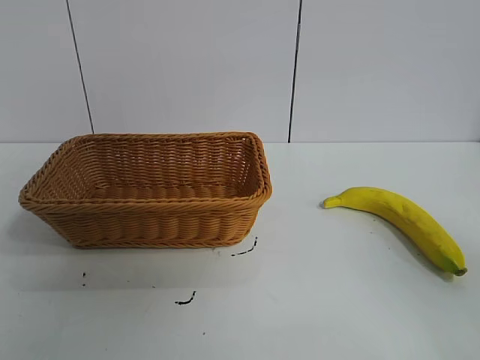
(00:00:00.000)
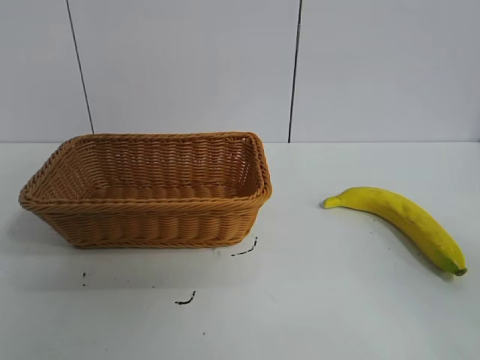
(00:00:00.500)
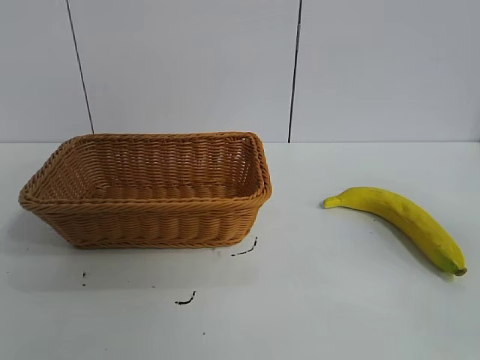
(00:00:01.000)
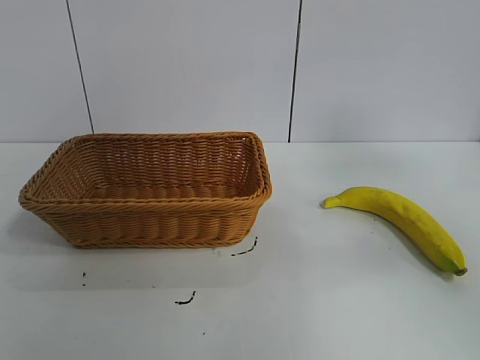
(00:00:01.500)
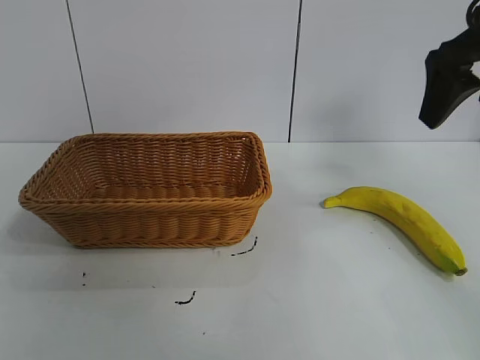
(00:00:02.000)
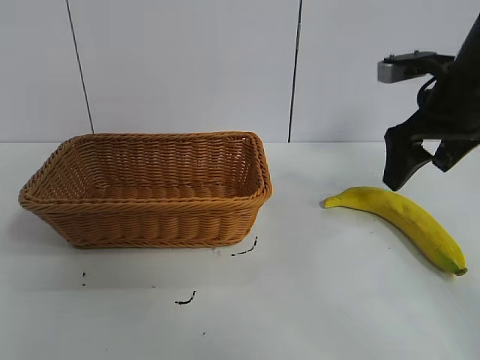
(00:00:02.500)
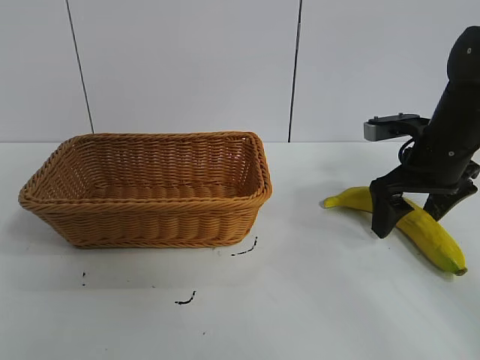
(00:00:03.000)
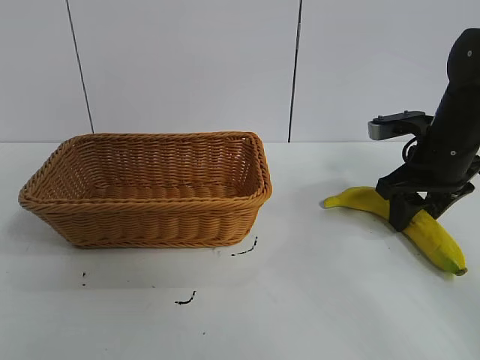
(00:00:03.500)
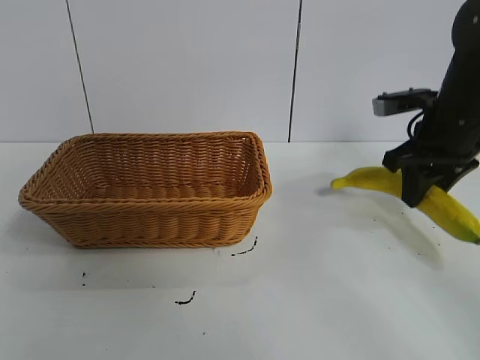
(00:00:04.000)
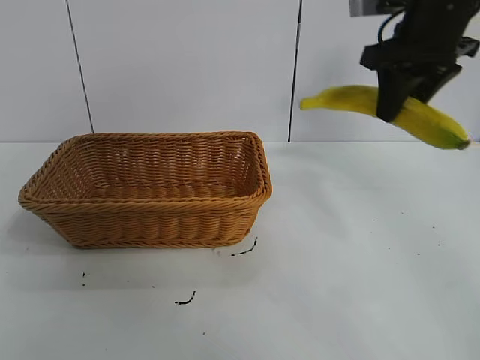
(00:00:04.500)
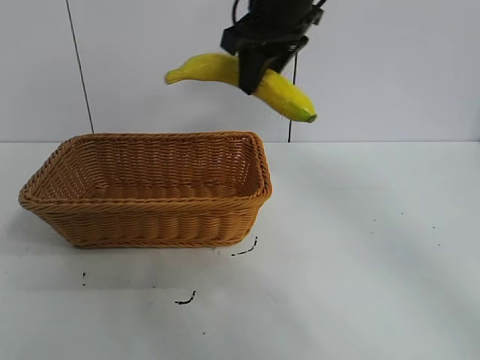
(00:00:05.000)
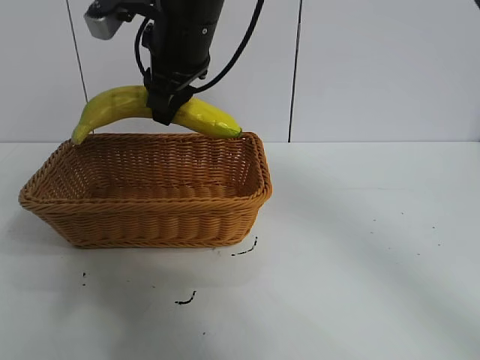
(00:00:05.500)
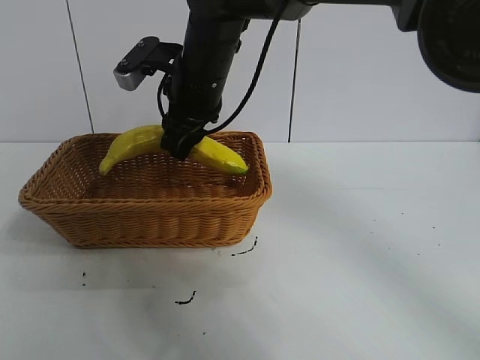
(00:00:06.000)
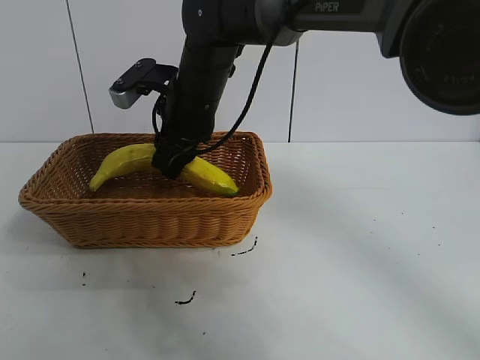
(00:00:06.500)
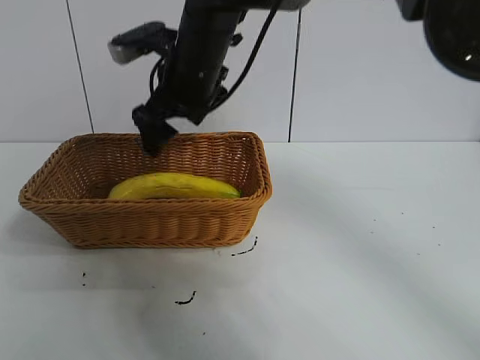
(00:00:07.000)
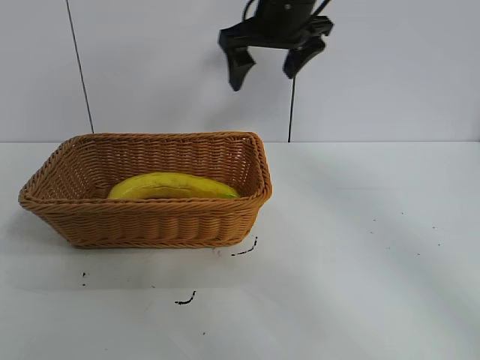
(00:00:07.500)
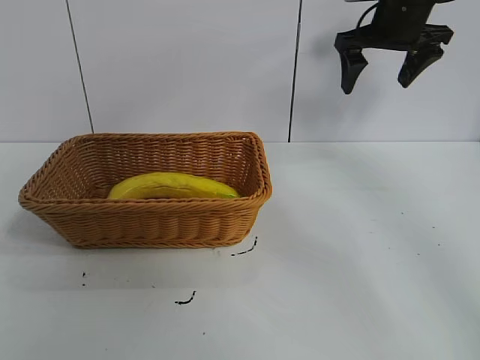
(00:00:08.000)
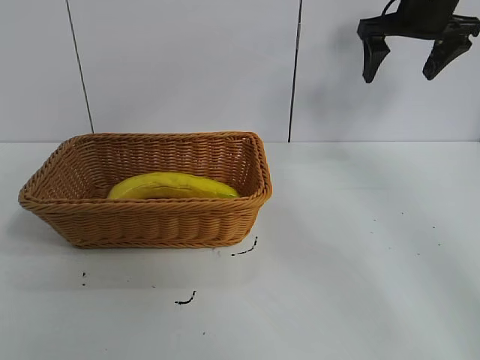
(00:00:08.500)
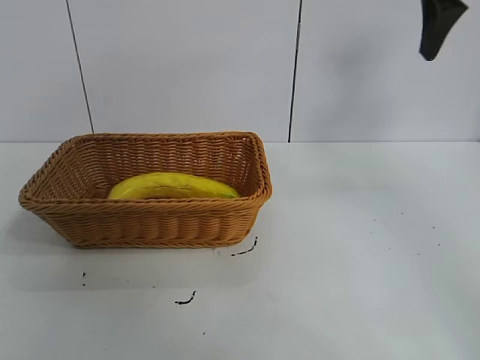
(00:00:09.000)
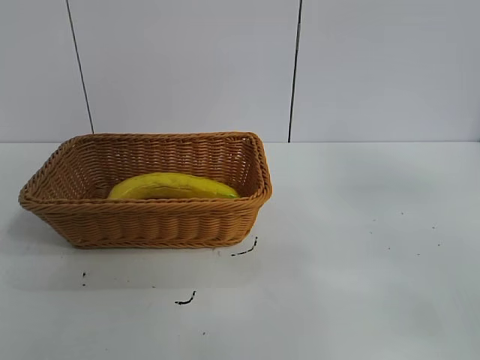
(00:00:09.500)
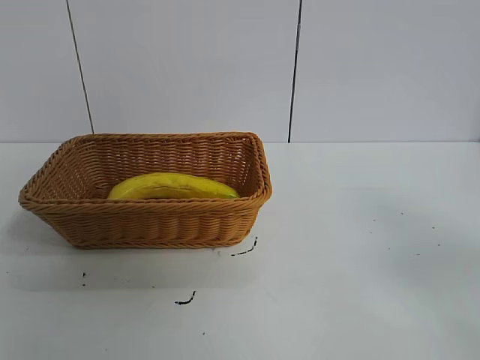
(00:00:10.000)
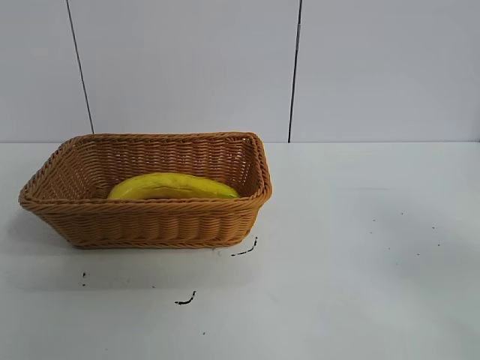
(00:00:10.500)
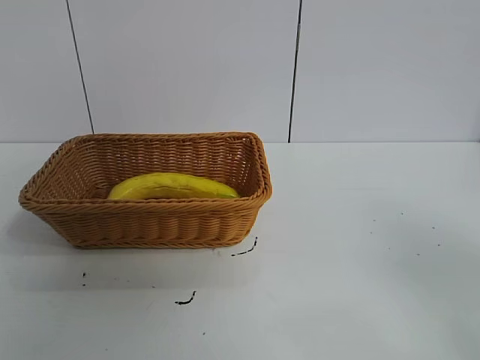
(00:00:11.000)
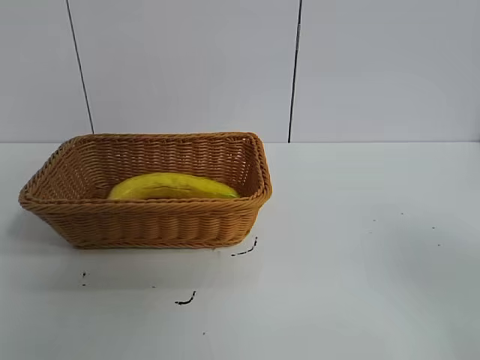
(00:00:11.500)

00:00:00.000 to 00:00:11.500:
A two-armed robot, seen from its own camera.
Task of the whole recording: pick up the banana and put it into the basket.
Step, 00:00:01.000 to 00:00:03.500: Grasp the banana with right gripper.
Step, 00:00:04.000 to 00:00:06.500: Place the banana in the basket with right gripper.

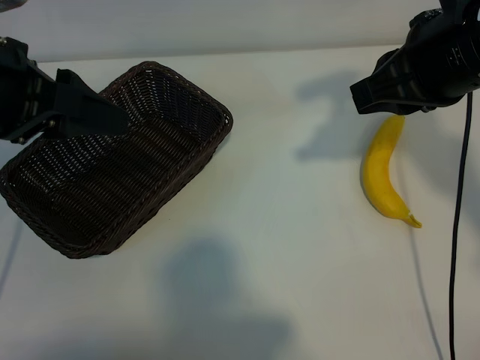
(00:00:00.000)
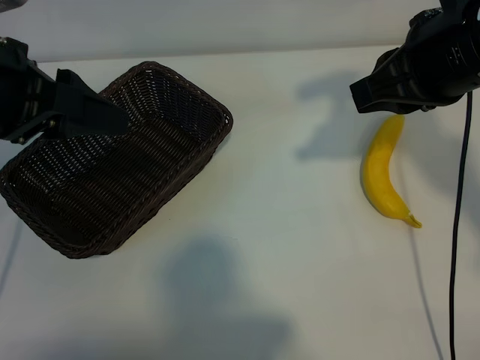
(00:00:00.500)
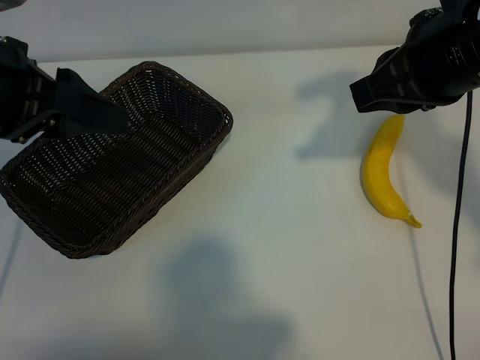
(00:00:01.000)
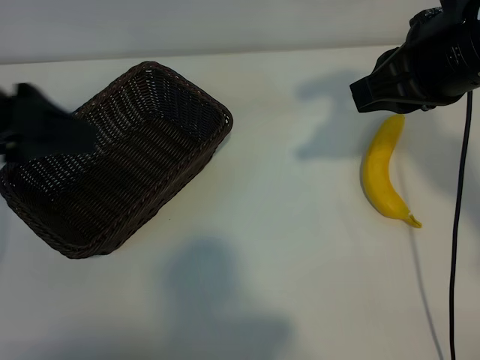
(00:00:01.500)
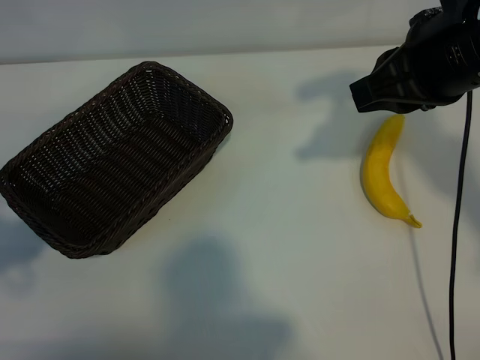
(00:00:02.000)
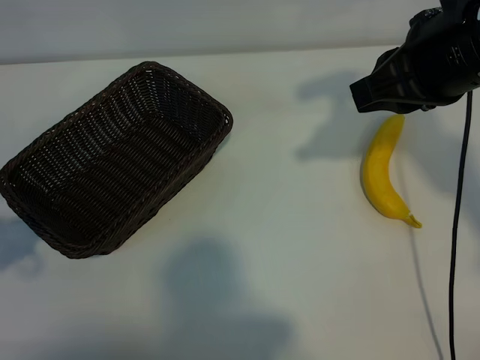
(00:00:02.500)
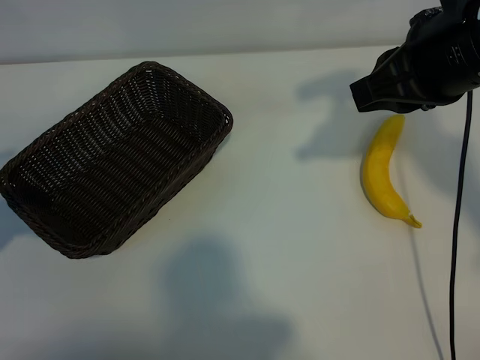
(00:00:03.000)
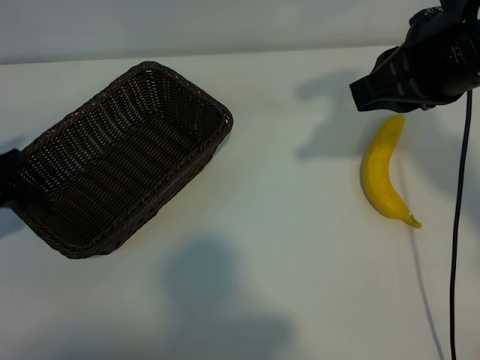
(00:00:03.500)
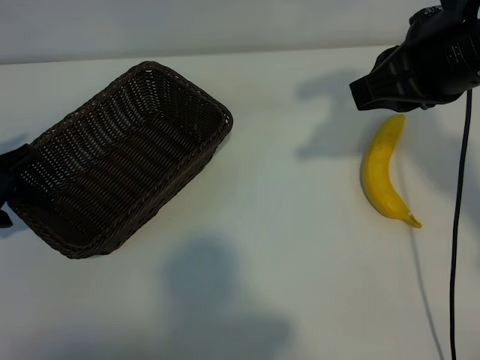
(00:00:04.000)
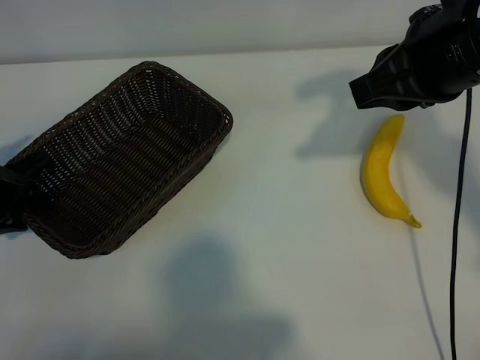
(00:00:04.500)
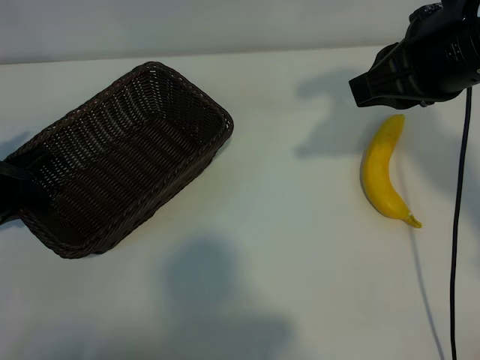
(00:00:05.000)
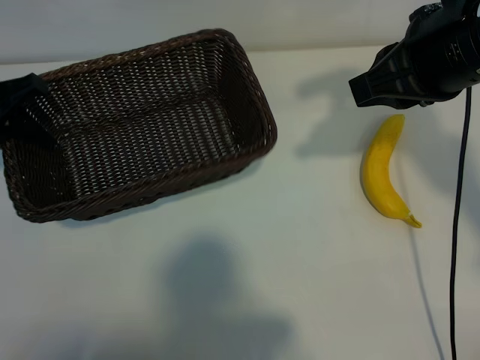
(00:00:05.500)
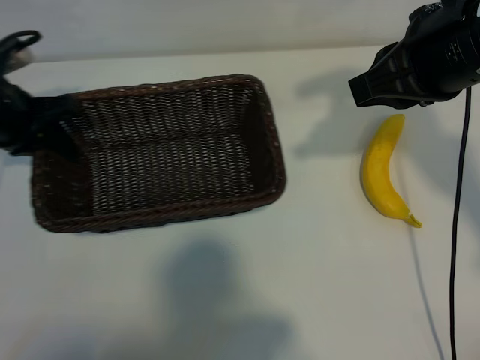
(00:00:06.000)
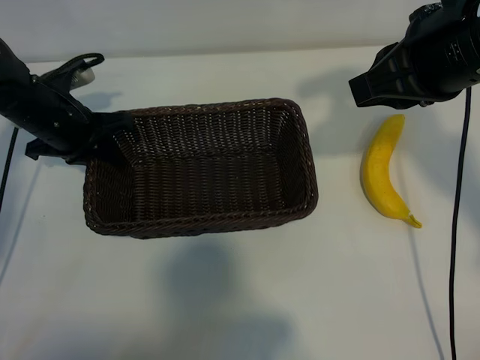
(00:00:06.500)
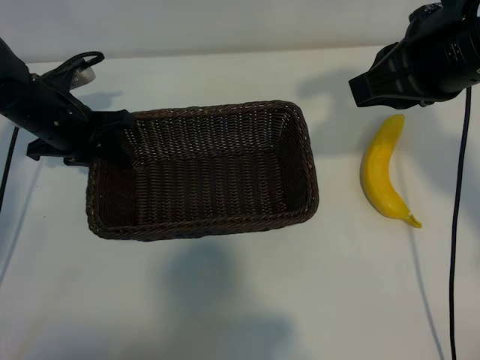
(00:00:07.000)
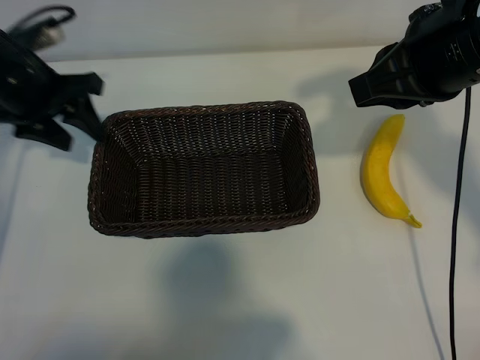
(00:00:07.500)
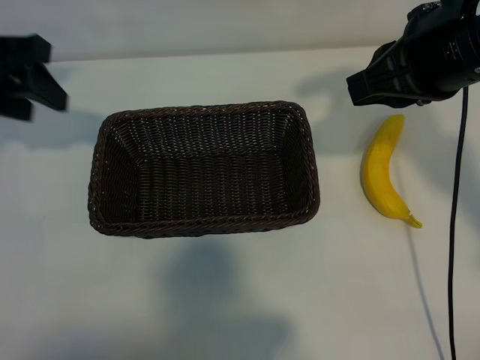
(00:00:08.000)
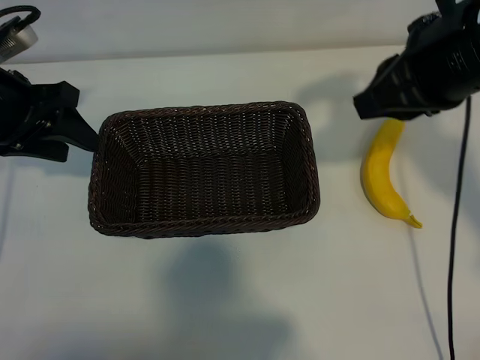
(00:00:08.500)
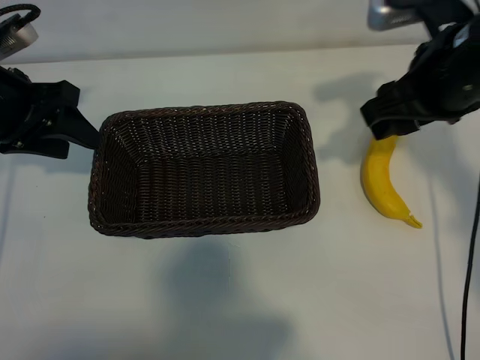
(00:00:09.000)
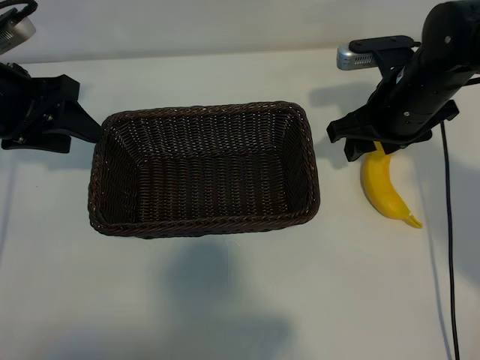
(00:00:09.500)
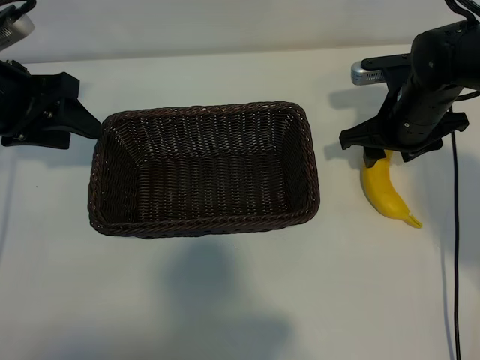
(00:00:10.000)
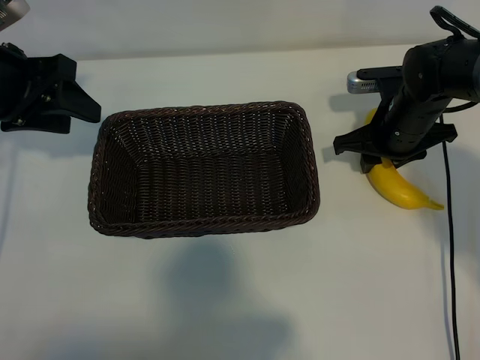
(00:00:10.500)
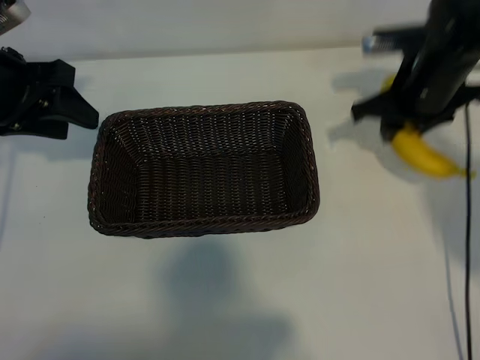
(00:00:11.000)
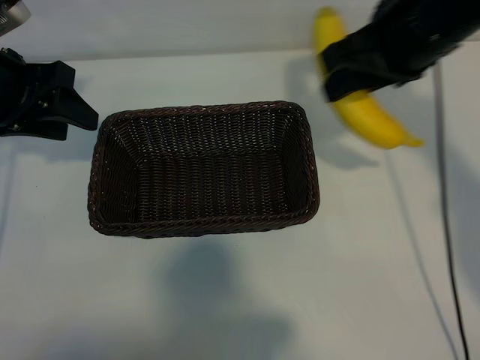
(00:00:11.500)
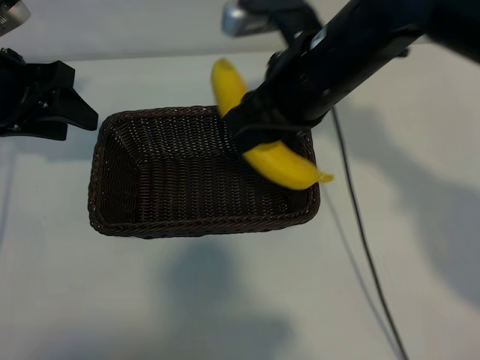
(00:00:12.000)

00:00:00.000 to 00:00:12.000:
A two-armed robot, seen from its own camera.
Task of the whole recording: pick up the banana and put it into the basket.
Step, 00:00:01.000 to 00:00:04.500: Grasp the basket with the left gripper.
Step, 00:00:05.000 to 00:00:07.000: Place the basket in the center of the table with the left gripper.
Step, 00:00:07.500 to 00:00:10.500: Grasp the banana with right gripper.
